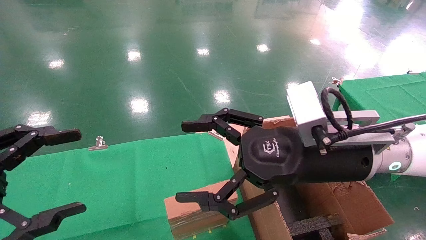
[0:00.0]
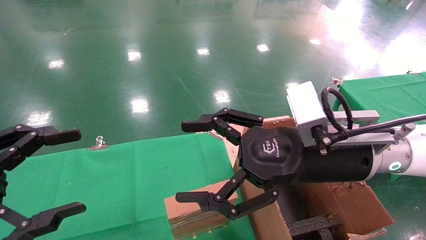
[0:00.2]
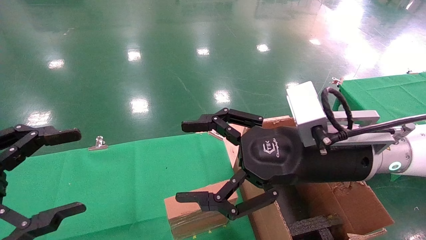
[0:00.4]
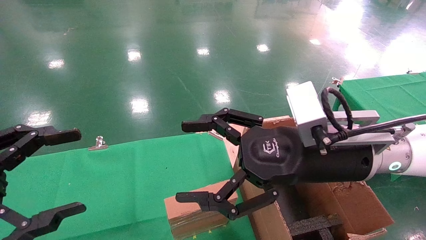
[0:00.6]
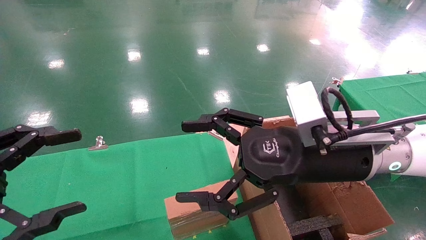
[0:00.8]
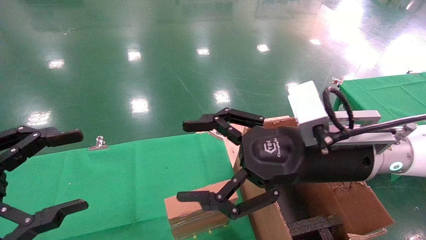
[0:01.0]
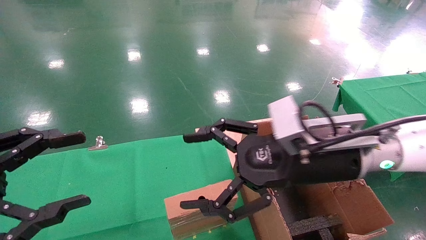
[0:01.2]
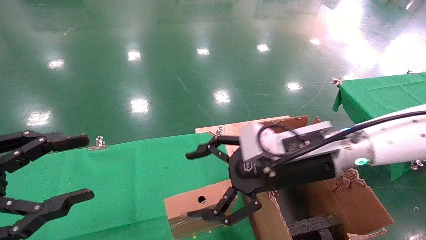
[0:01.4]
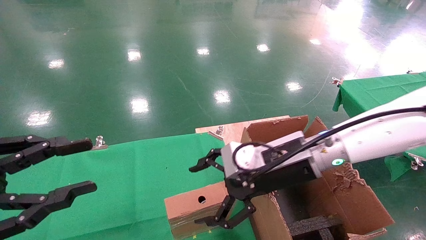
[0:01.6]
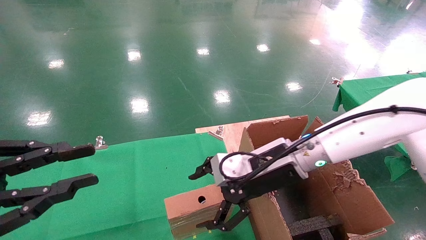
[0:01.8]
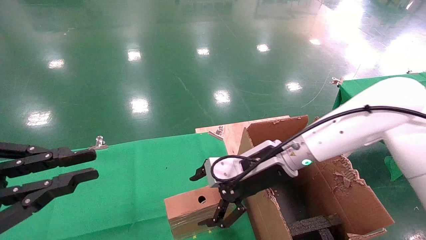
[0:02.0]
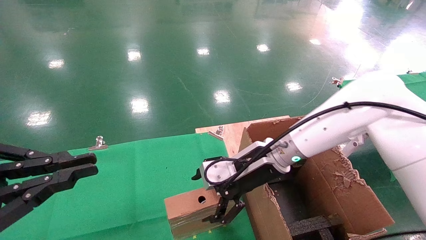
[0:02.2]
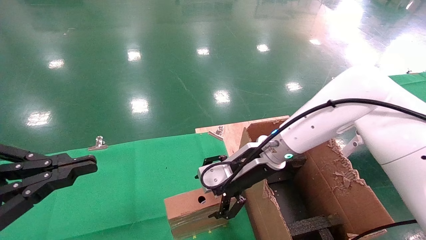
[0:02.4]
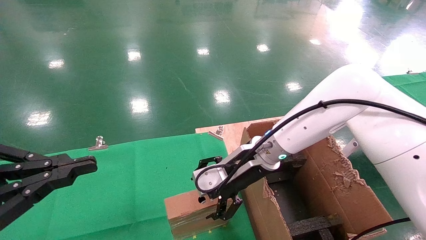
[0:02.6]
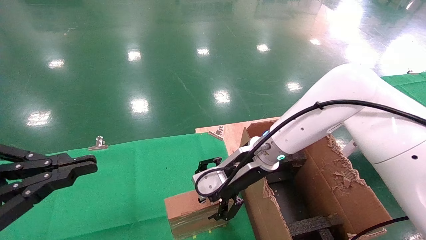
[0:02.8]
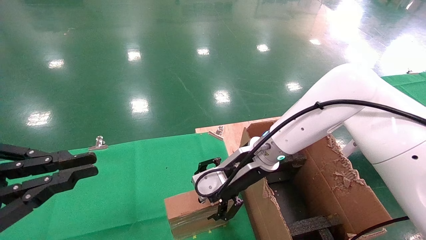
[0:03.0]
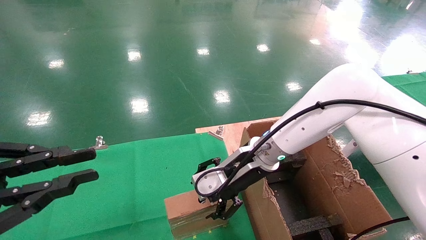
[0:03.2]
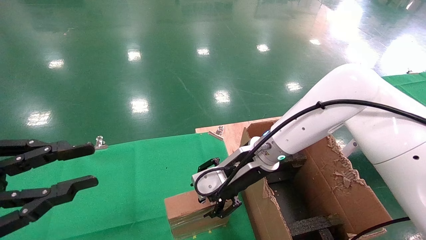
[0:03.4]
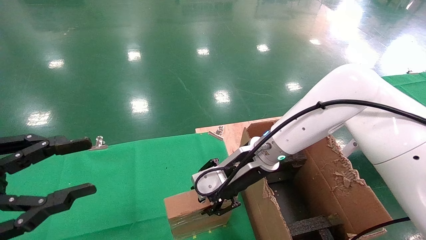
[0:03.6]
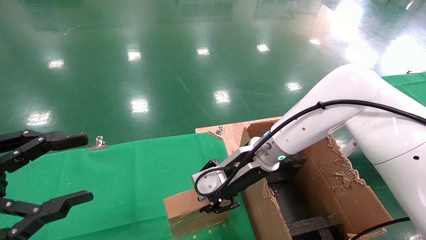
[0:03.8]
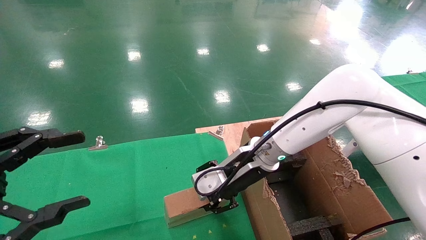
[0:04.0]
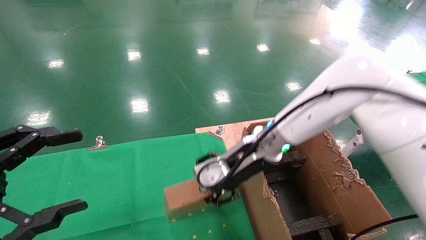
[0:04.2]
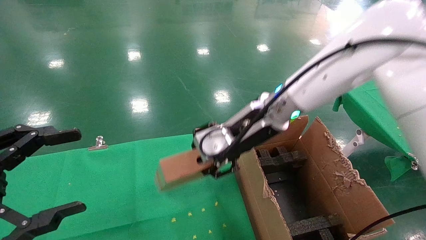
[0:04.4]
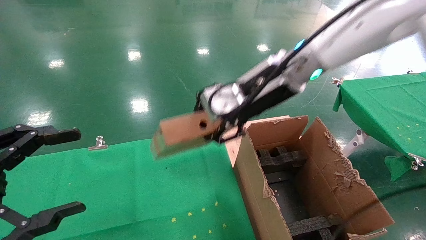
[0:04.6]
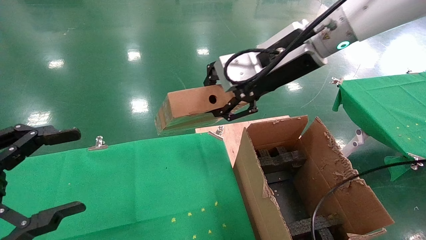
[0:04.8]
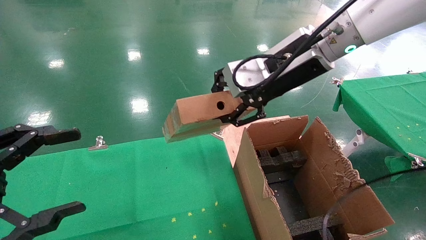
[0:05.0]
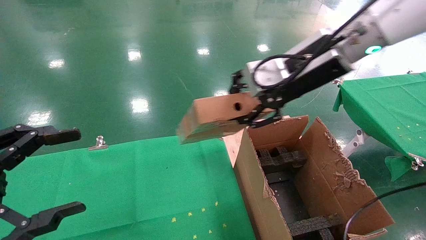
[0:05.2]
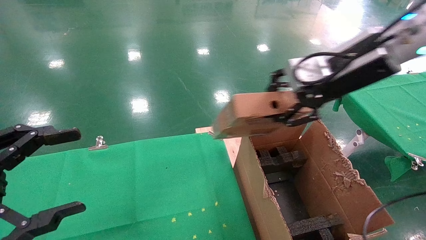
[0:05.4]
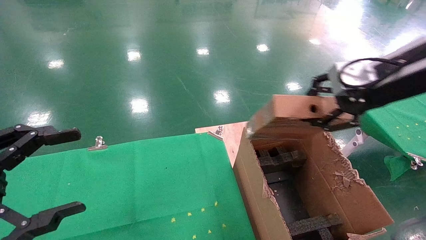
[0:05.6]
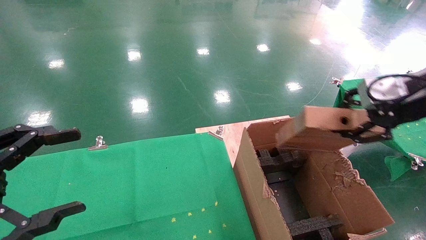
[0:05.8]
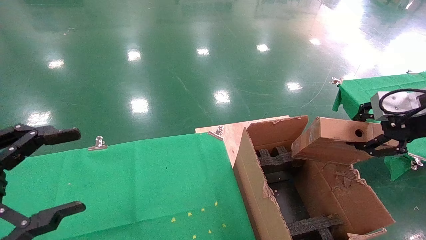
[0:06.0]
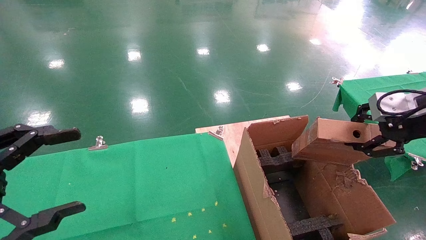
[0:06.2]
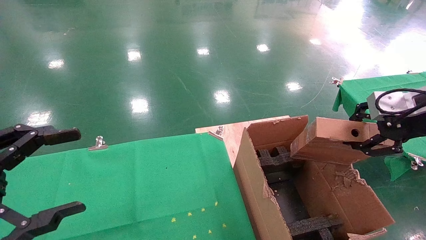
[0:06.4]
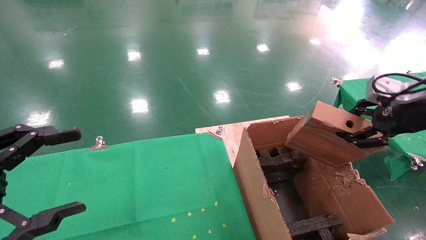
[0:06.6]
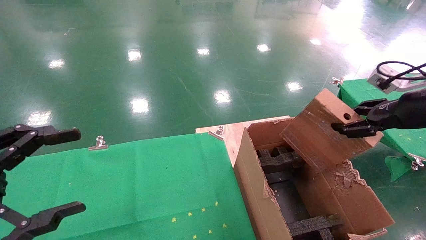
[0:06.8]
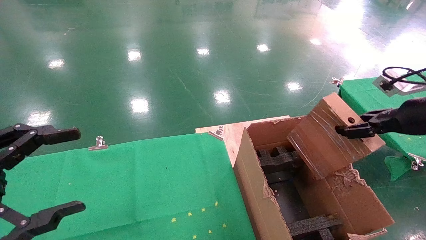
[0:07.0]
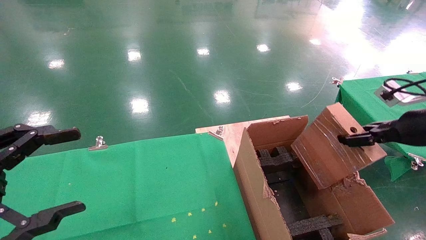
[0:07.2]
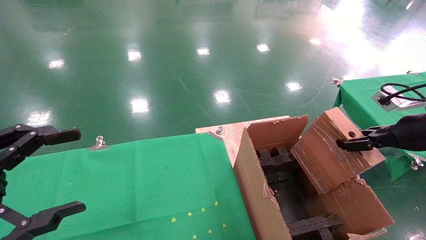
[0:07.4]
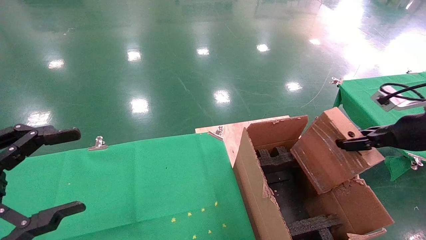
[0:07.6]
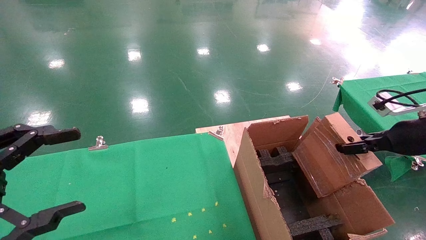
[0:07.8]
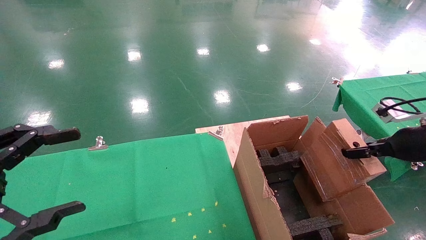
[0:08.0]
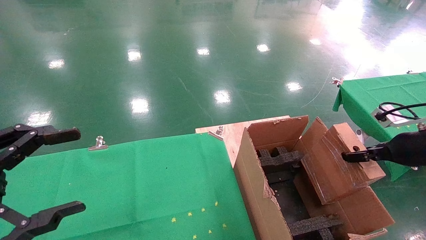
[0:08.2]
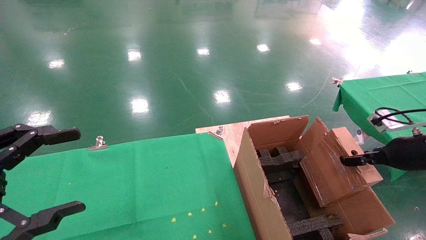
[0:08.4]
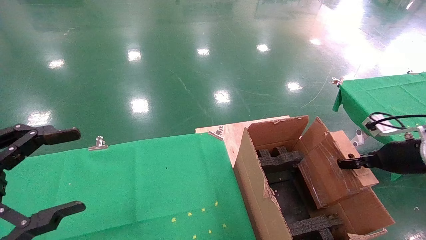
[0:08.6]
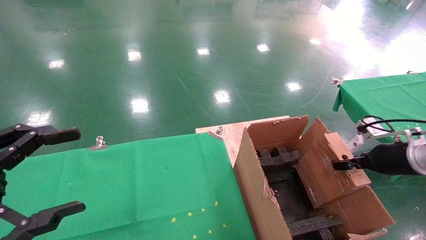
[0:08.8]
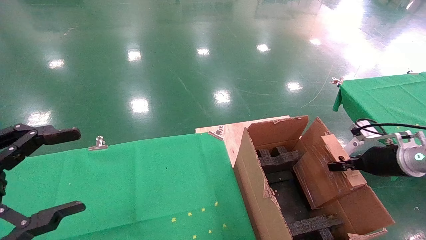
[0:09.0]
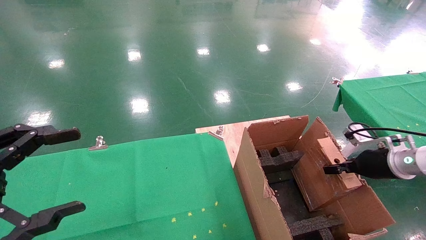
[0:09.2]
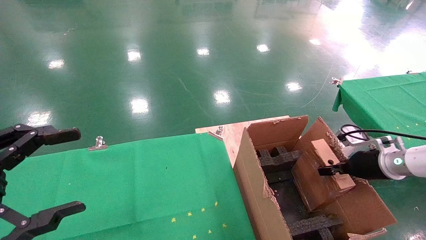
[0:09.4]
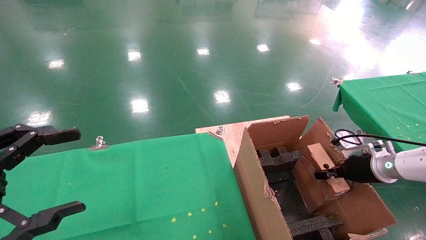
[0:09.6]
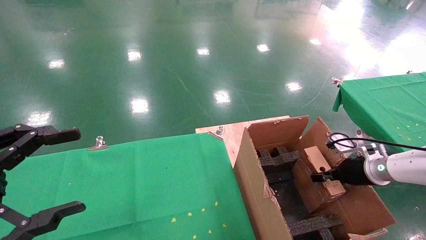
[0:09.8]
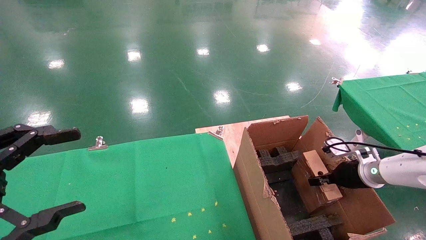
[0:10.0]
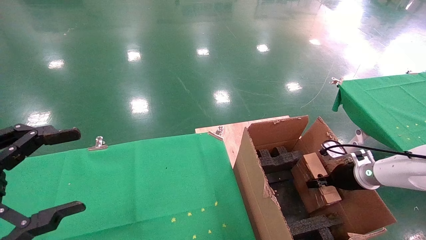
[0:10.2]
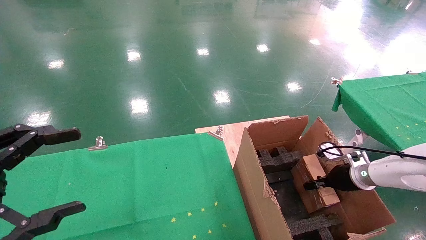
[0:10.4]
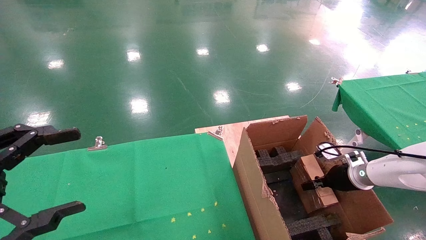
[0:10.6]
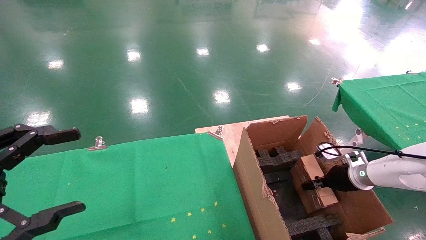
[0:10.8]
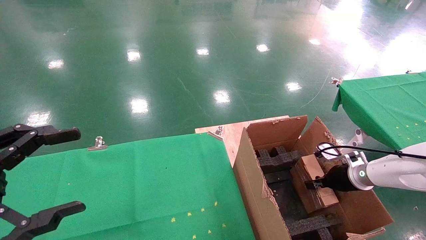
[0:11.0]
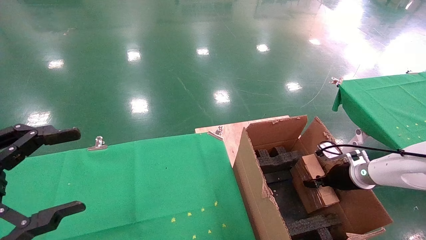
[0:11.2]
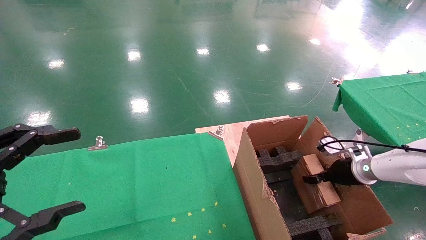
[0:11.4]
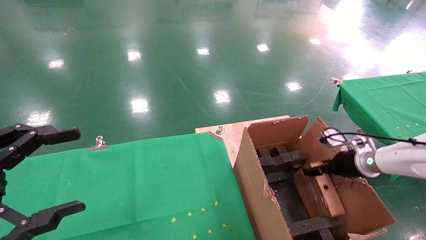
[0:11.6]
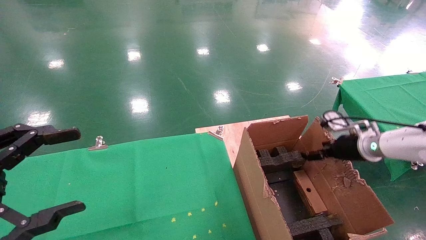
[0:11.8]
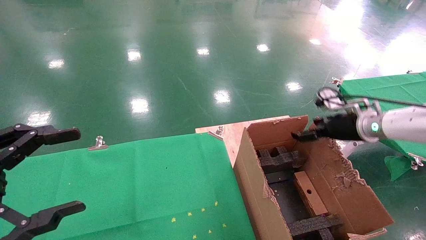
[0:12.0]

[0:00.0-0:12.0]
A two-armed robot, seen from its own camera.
Task of the whole recording: using a robotic arm to pick up a cardboard box and palace it the carton.
Step, 0:01.4 to 0:03.6: Pick up the mouse and the power cord paper box.
Step, 0:03.8 to 0:11.4: Place the mouse and the power cord paper box into the container.
0:00.0 to 0:01.6: The right gripper moves forward, some 5 cm. Meanwhile the left gripper closes up.
0:01.6 to 0:03.0: The right gripper moves forward, roughly 5 cm. The left gripper closes up.
0:03.0 to 0:04.4: The right gripper shifts some 10 cm upward, and closes its fingers. The left gripper opens.
0:04.4 to 0:06.0: The right gripper travels to the right by roughly 30 cm.
0:06.0 to 0:07.6: The right gripper heads downward and to the right, covering some 10 cm.
0:07.6 to 0:09.0: The right gripper goes some 10 cm downward and forward.
0:09.0 to 0:10.4: The right gripper heads downward and forward, covering some 10 cm.
0:10.4 to 0:12.0: The right gripper travels upward by some 15 cm, and opens.

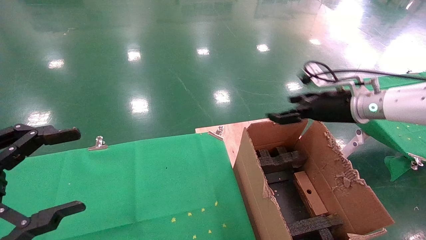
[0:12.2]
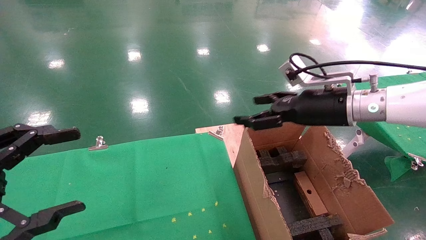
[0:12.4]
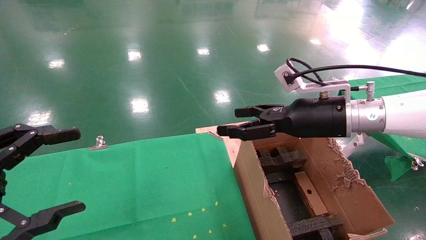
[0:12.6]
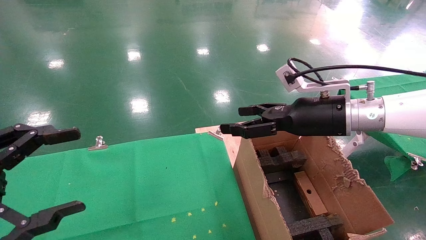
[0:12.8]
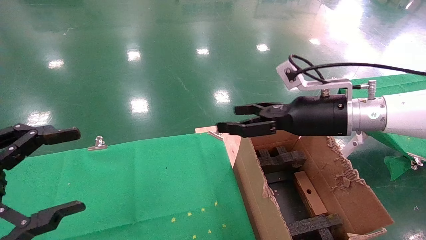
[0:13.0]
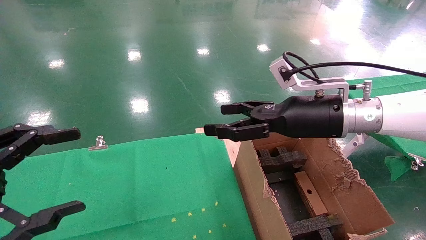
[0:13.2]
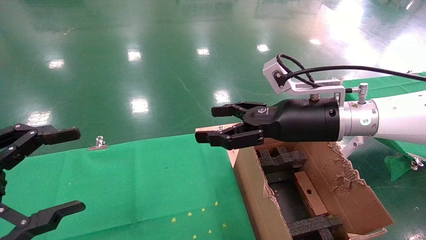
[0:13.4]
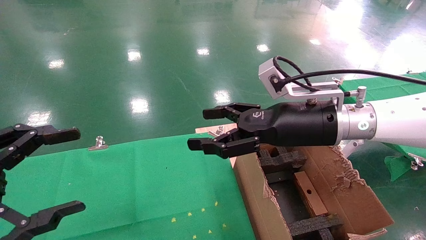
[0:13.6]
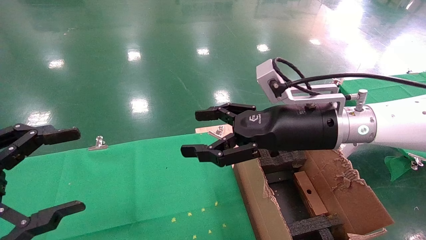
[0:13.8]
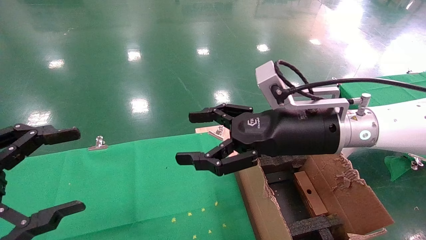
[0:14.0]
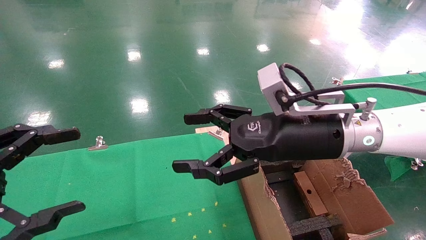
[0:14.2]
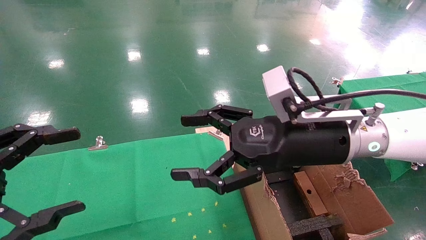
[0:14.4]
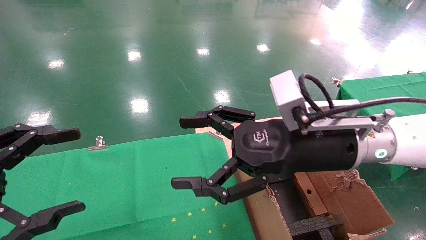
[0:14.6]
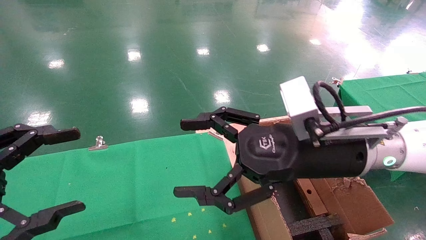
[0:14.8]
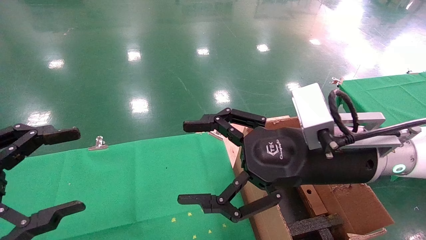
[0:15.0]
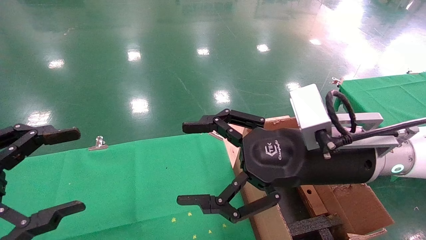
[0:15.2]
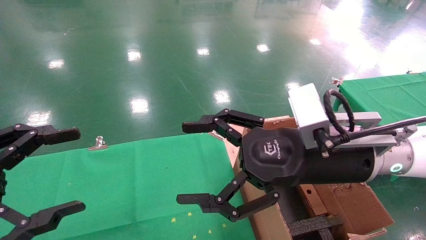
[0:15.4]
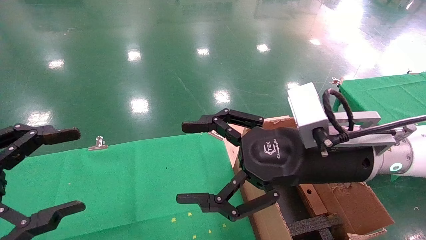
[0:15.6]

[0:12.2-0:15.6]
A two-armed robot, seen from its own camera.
Task of the whole recording: using a robotic arm to pick up a cardboard box and palace it the carton.
0:12.2 to 0:13.8: The right gripper travels to the left and backward by roughly 15 cm.
0:13.8 to 0:15.6: The right gripper is displaced backward by some 5 cm.

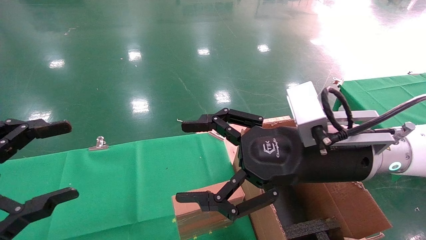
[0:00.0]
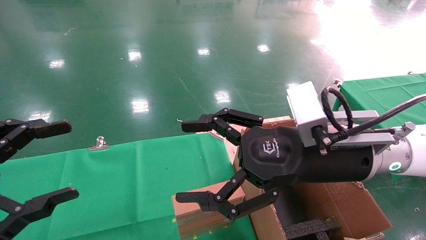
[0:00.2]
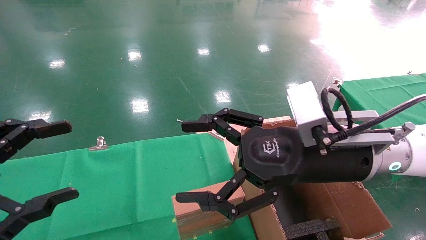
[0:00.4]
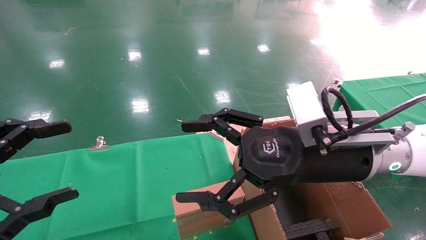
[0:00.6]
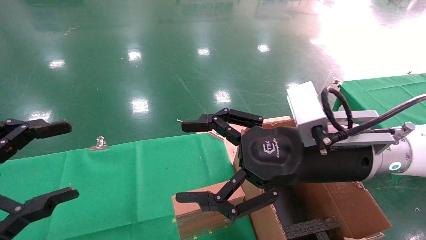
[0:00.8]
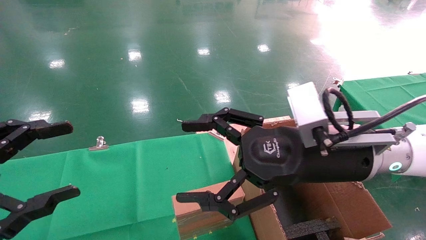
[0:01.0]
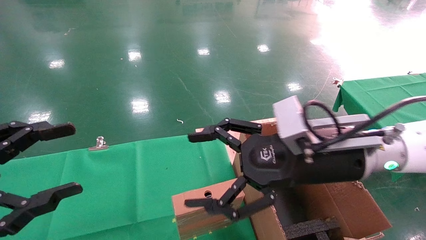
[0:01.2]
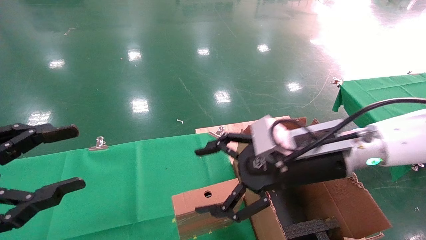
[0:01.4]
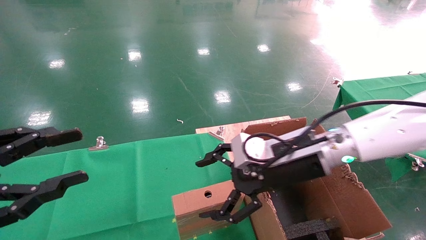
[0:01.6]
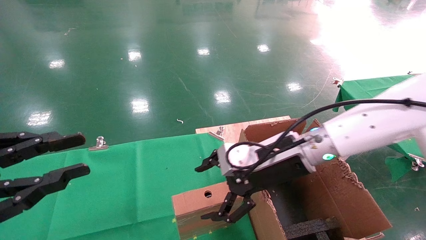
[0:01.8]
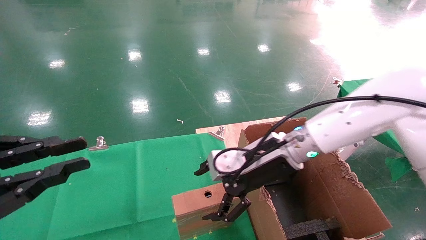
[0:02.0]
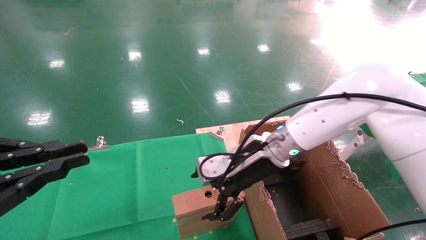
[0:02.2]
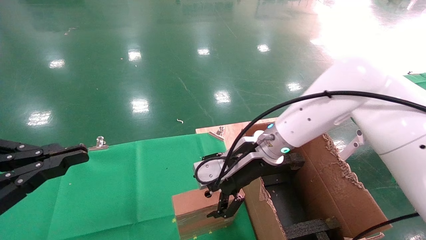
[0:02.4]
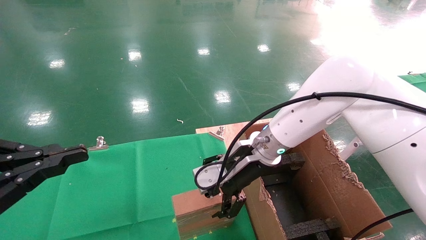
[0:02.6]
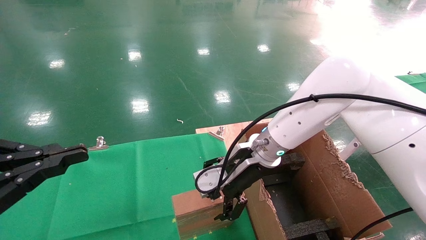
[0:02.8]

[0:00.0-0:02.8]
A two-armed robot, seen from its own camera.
Task of the whole recording: using a robotic arm to pick up a cardboard box and palace it the carton.
0:01.4 to 0:02.8: The left gripper closes its fingers. Meanwhile the right gripper heads forward and to the left, covering some 10 cm.
